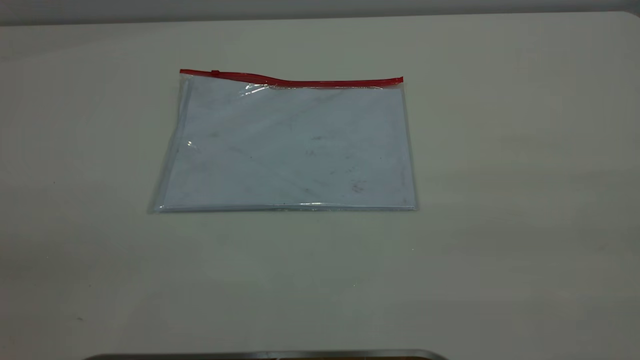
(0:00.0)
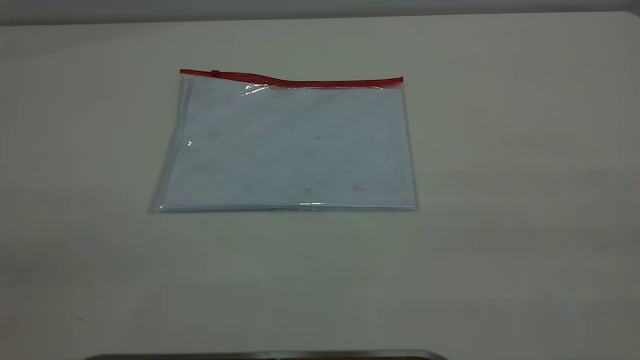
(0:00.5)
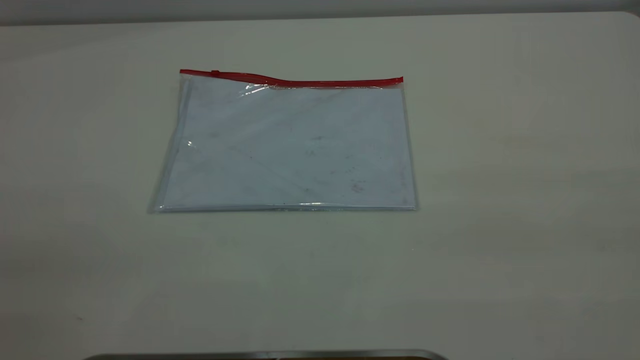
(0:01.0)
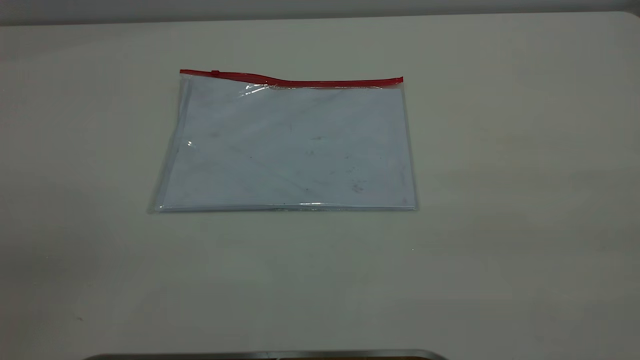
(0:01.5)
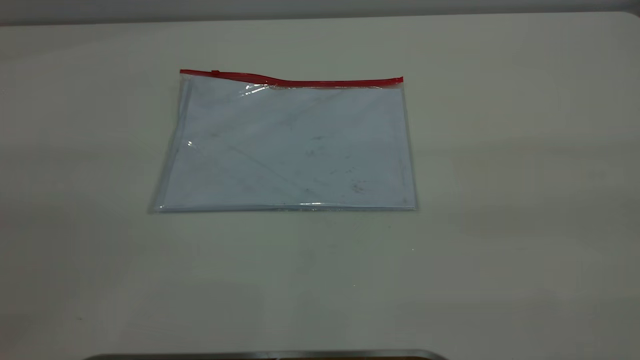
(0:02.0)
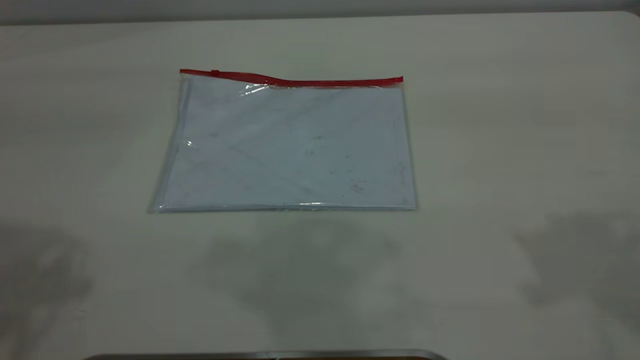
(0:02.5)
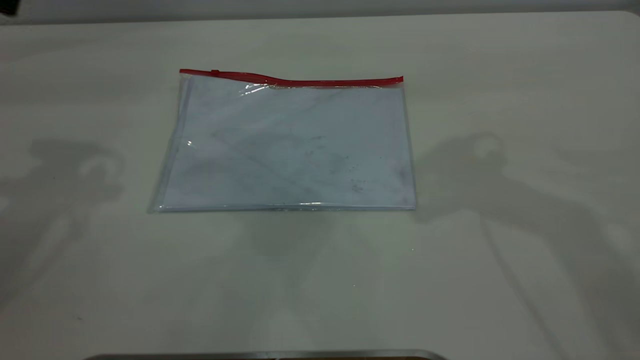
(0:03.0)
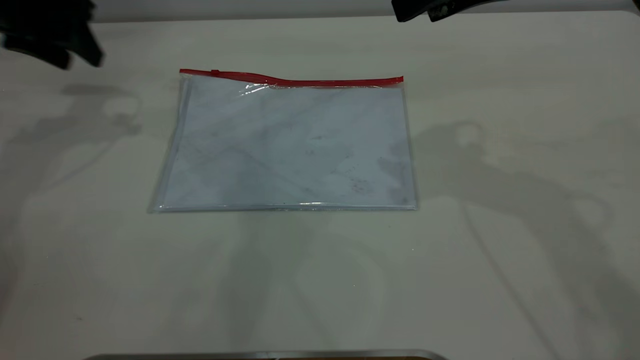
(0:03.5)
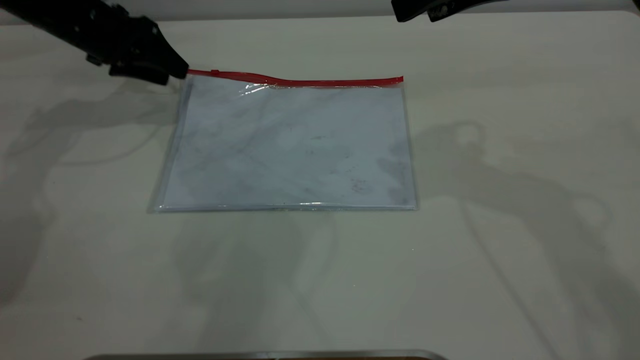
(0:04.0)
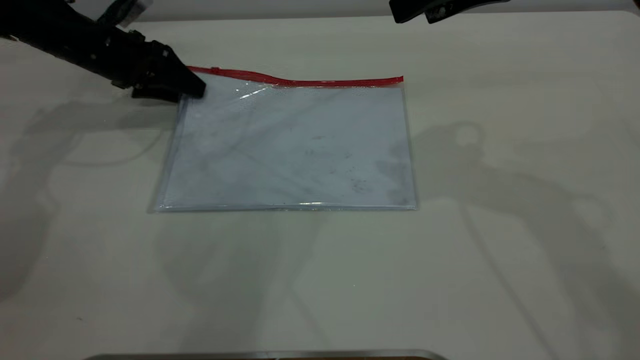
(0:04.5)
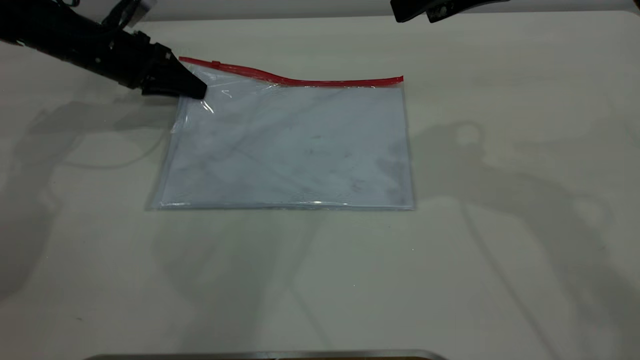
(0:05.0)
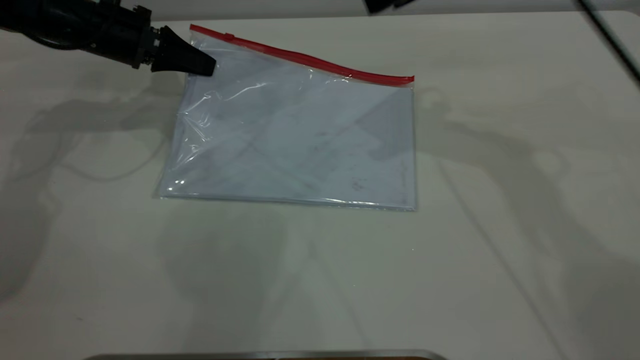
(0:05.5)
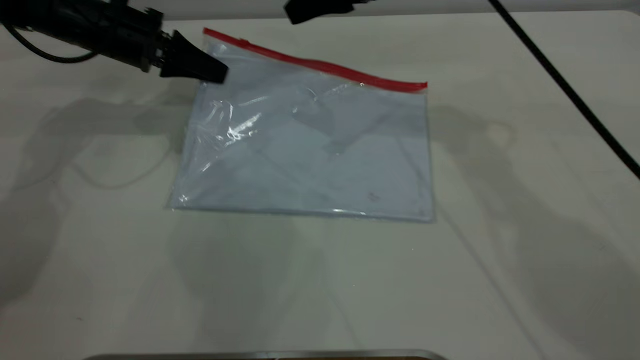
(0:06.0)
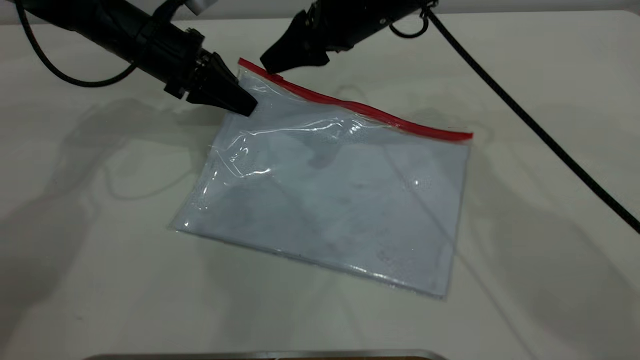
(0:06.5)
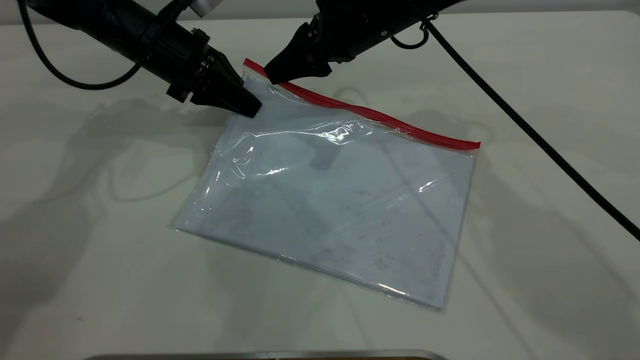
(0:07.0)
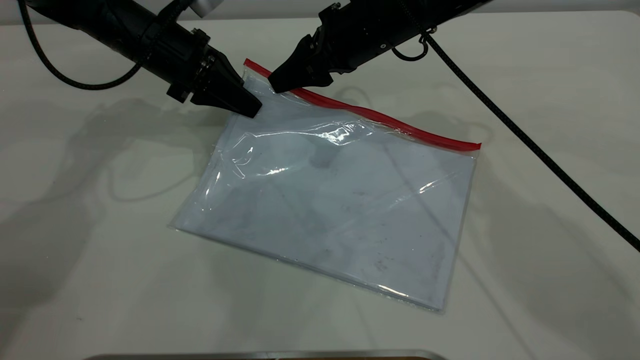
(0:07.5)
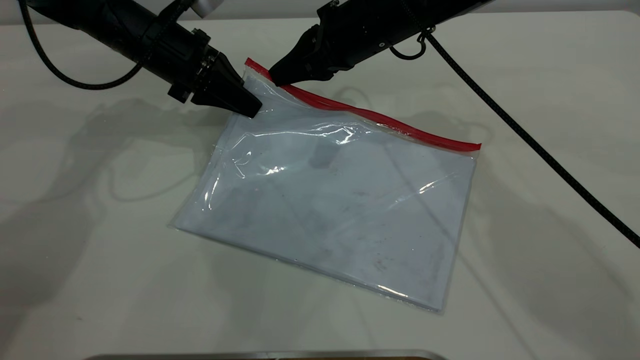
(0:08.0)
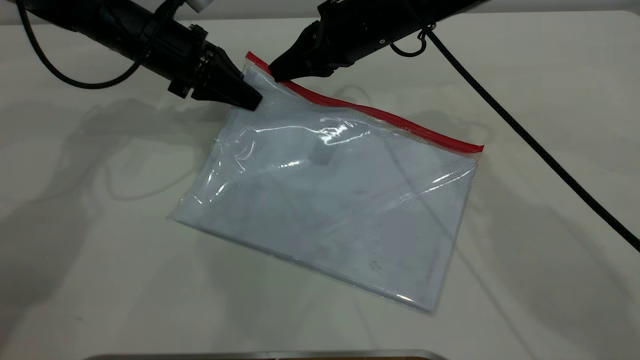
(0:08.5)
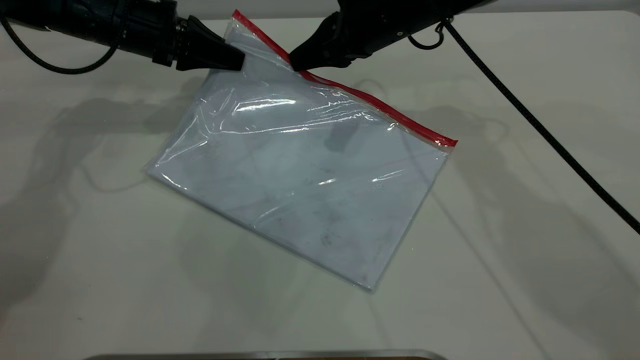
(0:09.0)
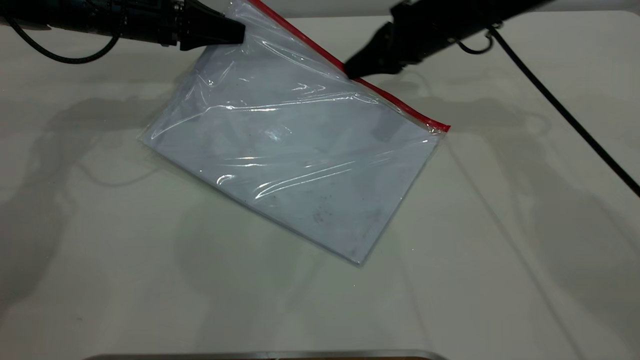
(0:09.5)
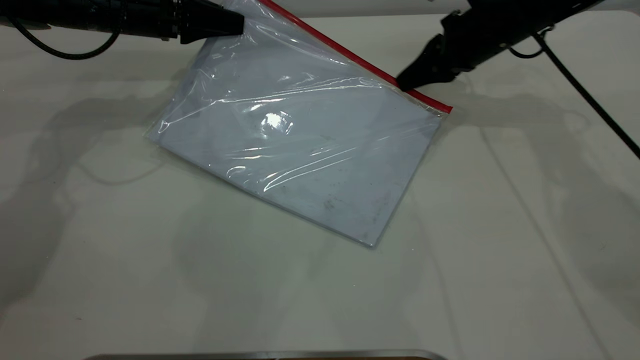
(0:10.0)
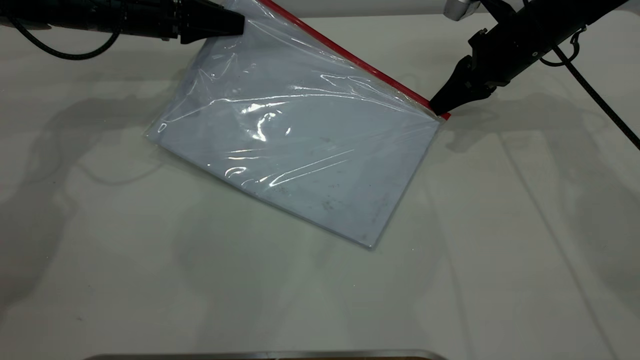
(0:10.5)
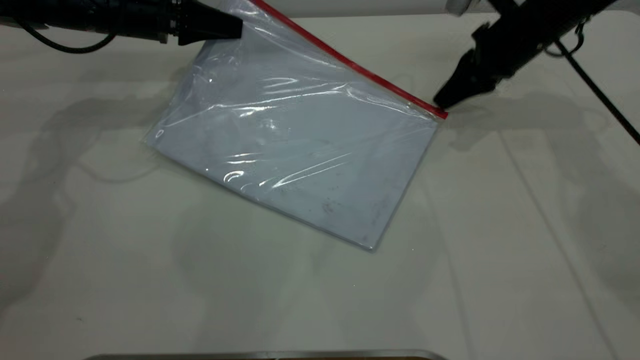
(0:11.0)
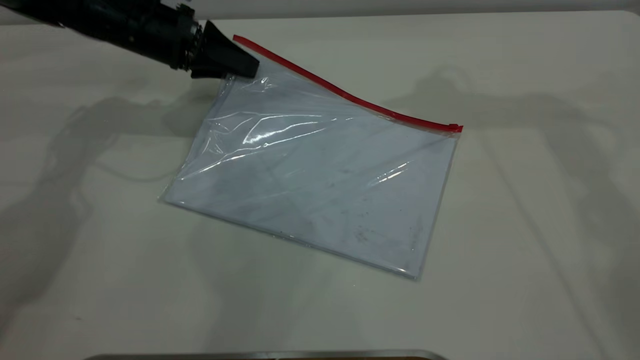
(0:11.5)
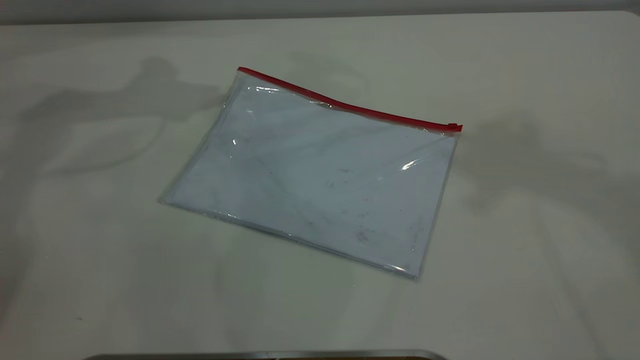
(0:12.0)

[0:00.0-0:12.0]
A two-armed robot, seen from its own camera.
Step, 0:00.0 to 0:05.0: Pick up the transparent plastic bag with the left gripper.
Step, 0:05.5 to 0:11.0: Pulling up the zipper on the transparent plastic bag with the right gripper to close it.
0:02.0 to 0:04.0: The right gripper is displaced forward and to the left by approximately 35 cm, while the left gripper shifts roughly 50 cm forward and downward.
0:04.0 to 0:06.0: The left gripper shifts by some 5 cm, and closes its fingers. Meanwhile the right gripper heads forward, to the left and downward, covering approximately 15 cm.
0:06.0 to 0:08.0: The right gripper travels downward by some 5 cm, and closes its fingers.
0:08.0 to 0:10.0: The right gripper shifts approximately 15 cm to the right. Meanwhile the left gripper shifts by some 5 cm.
0:10.0 to 0:12.0: The right gripper moves upward, about 40 cm, and opens its fingers. The left gripper goes roughly 20 cm upward, and opens its fingers.

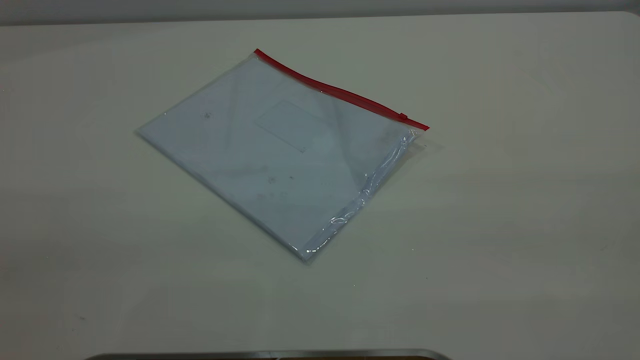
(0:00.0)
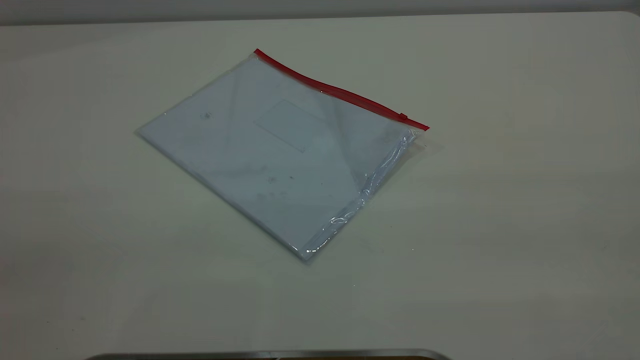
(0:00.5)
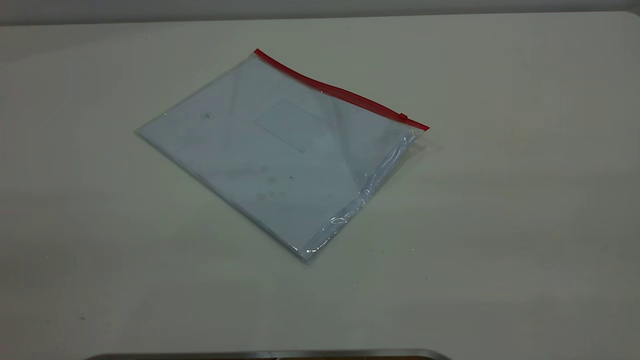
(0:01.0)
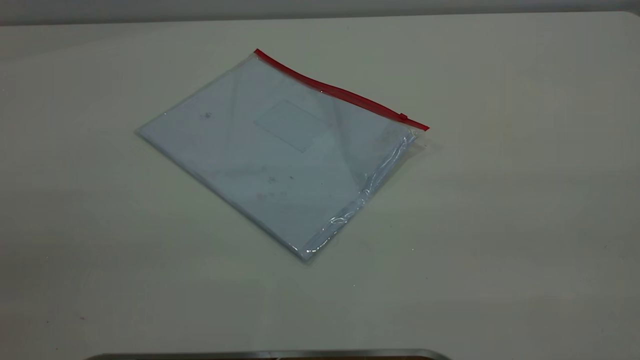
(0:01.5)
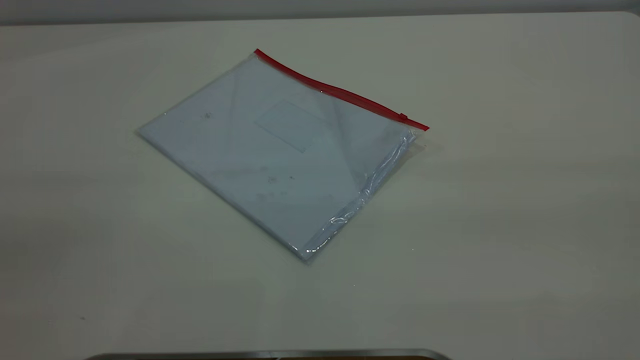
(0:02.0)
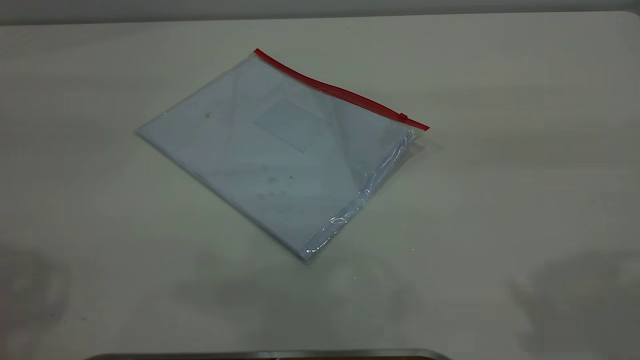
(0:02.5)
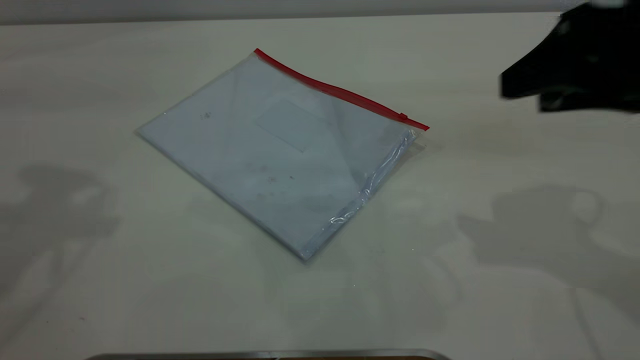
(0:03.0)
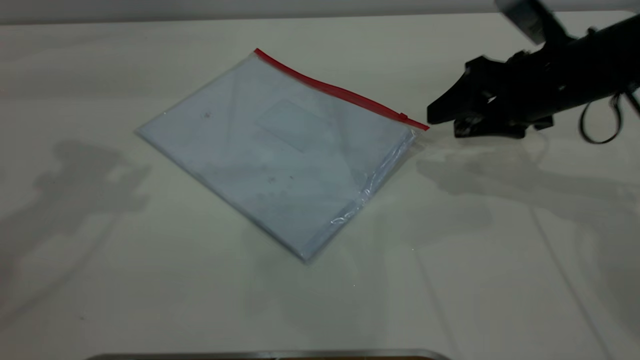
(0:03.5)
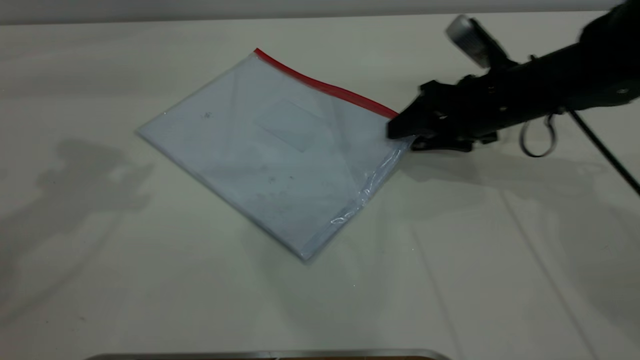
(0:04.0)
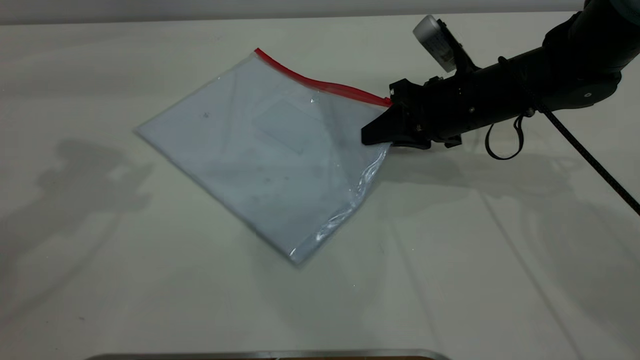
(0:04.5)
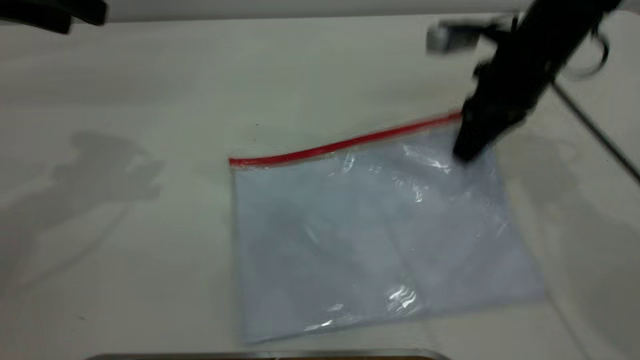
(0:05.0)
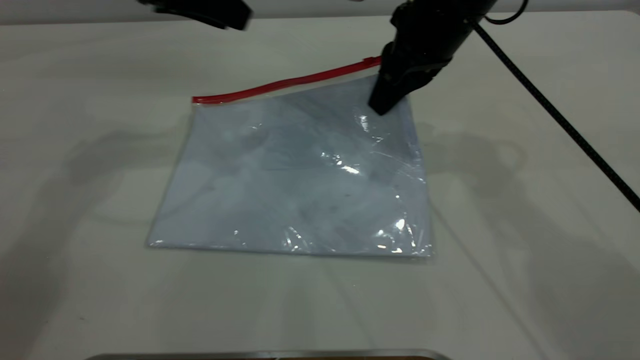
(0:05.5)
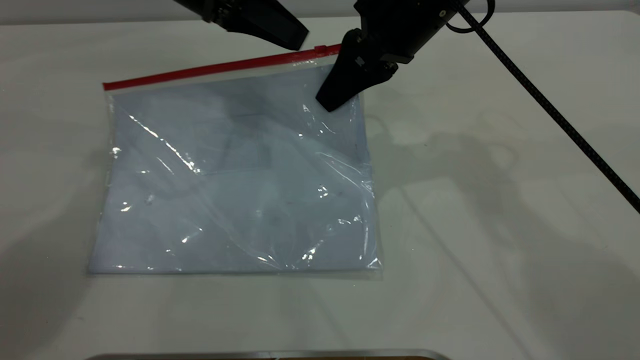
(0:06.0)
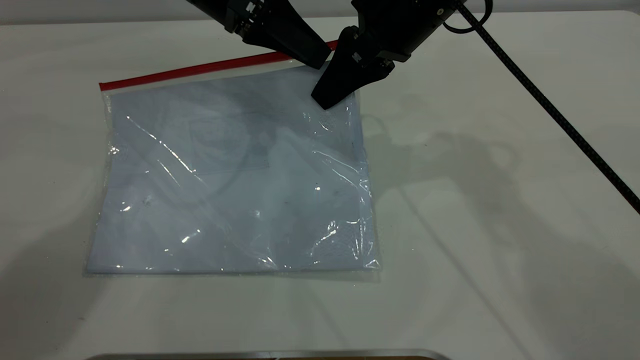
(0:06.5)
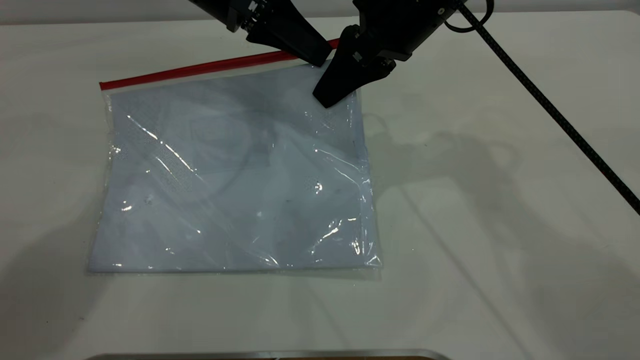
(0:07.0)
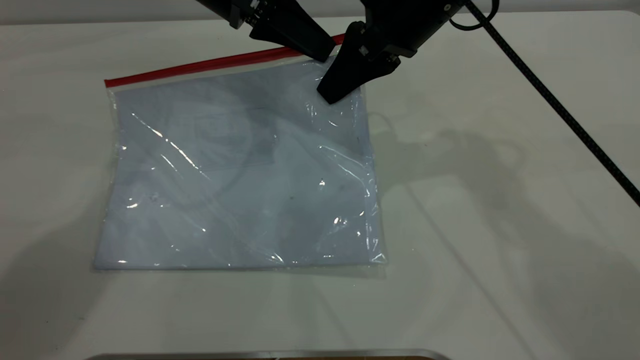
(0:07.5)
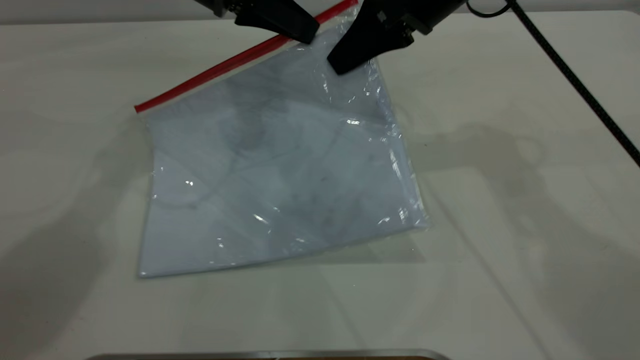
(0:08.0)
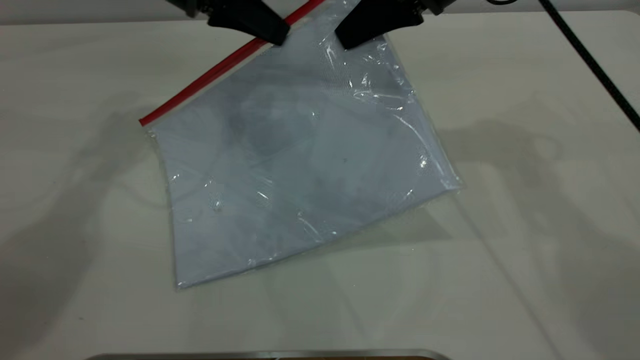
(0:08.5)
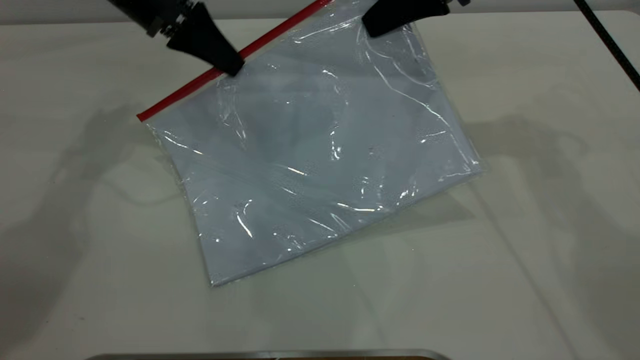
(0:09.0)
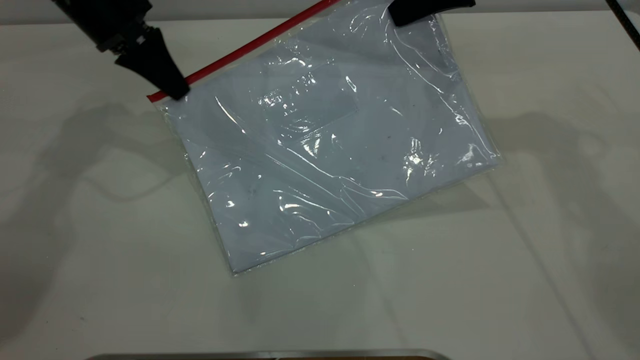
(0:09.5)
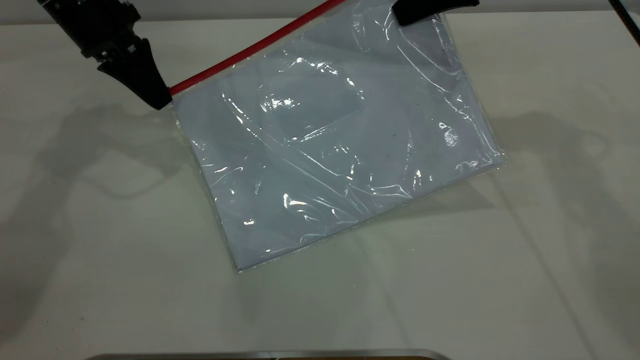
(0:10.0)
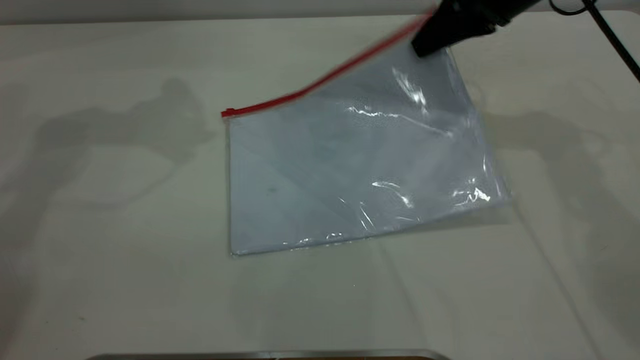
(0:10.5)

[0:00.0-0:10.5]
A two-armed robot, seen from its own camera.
Step, 0:00.0 to 0:05.5: Pick up the transparent plastic bag with the right gripper.
Step, 0:06.0 to 0:10.0: Pulling up the zipper on the transparent plastic bag with the left gripper to close it.
0:02.0 to 0:04.0: The right gripper heads forward and downward, covering some 50 cm. Meanwhile the left gripper shifts approximately 30 cm forward.
0:04.0 to 0:06.5: The left gripper shifts roughly 25 cm to the right, downward and forward, while the right gripper moves upward and to the left, some 15 cm, and closes.
0:06.5 to 0:08.5: The left gripper is displaced to the left by some 5 cm, and closes up. The right gripper moves about 5 cm.
0:08.5 to 0:10.5: The right gripper shifts about 5 cm to the right, and opens up. The left gripper moves upward and to the left, approximately 15 cm, and opens.
